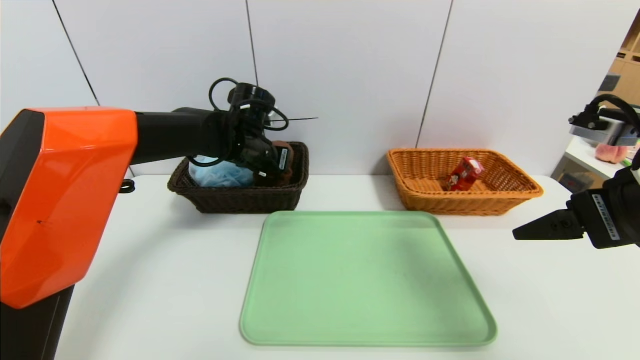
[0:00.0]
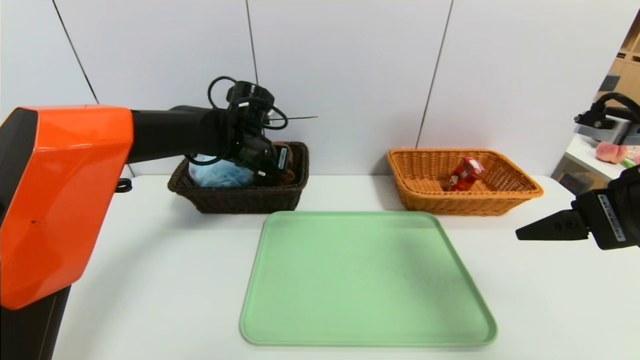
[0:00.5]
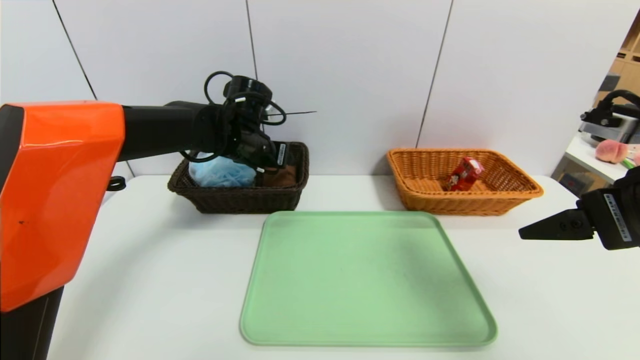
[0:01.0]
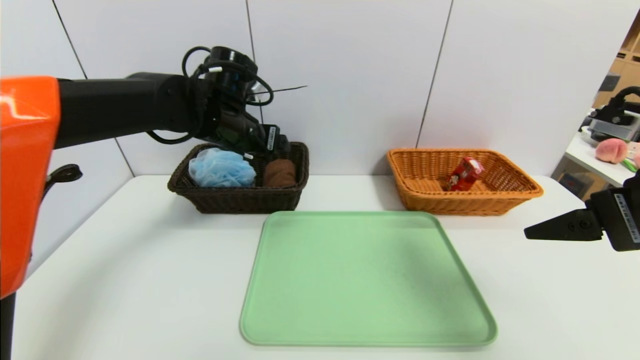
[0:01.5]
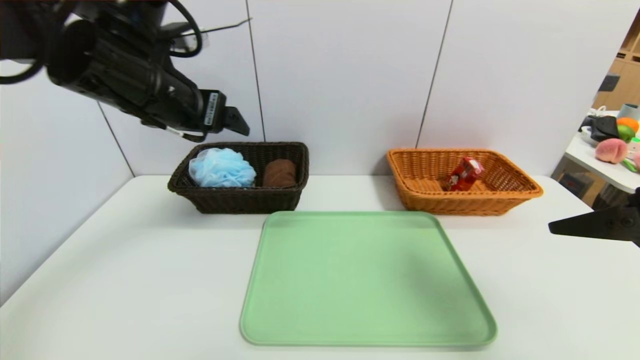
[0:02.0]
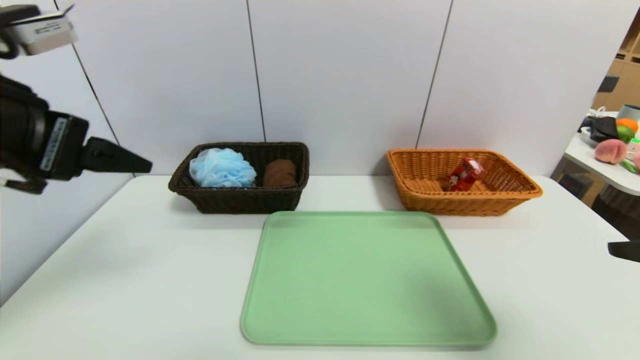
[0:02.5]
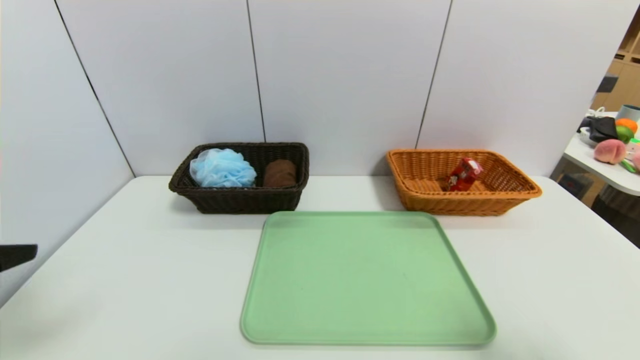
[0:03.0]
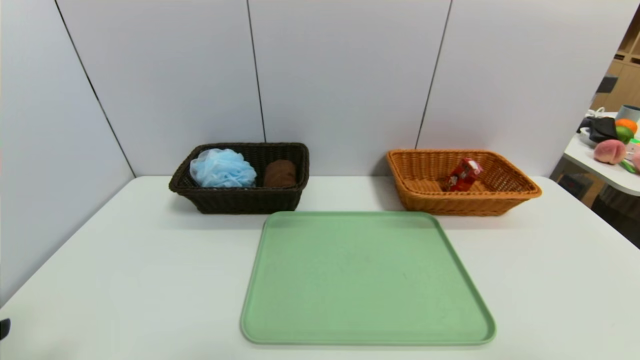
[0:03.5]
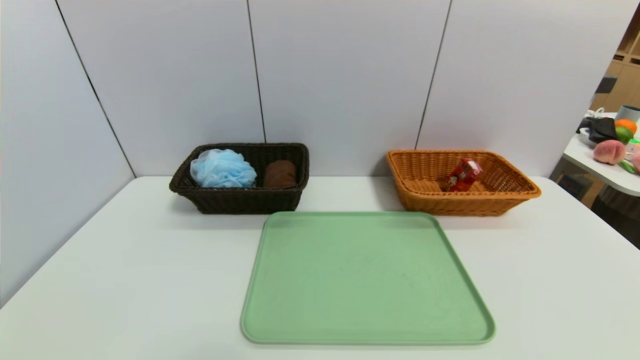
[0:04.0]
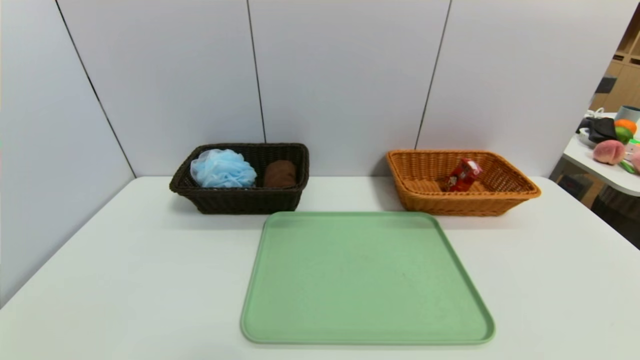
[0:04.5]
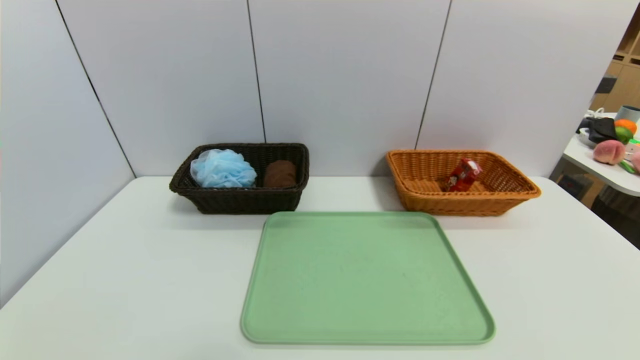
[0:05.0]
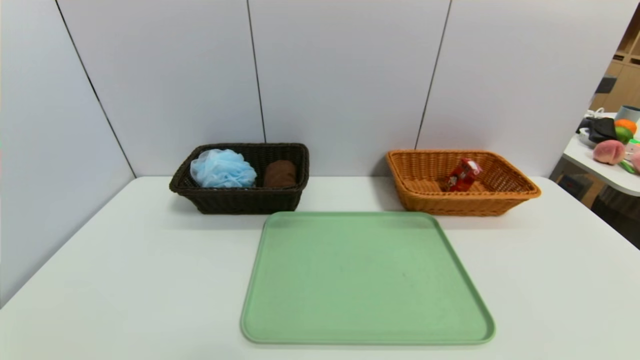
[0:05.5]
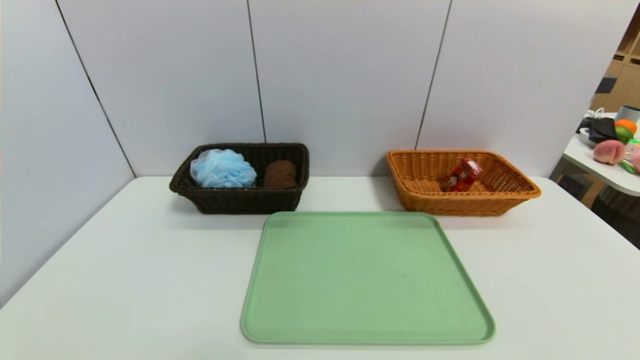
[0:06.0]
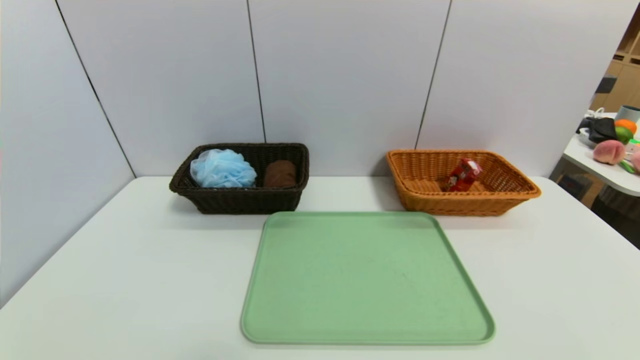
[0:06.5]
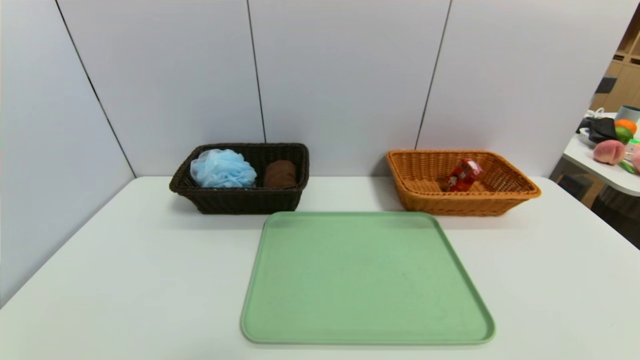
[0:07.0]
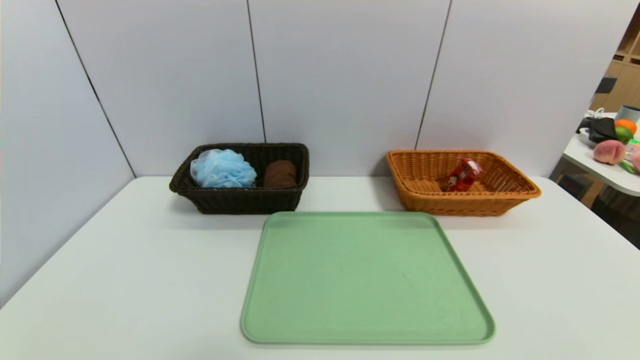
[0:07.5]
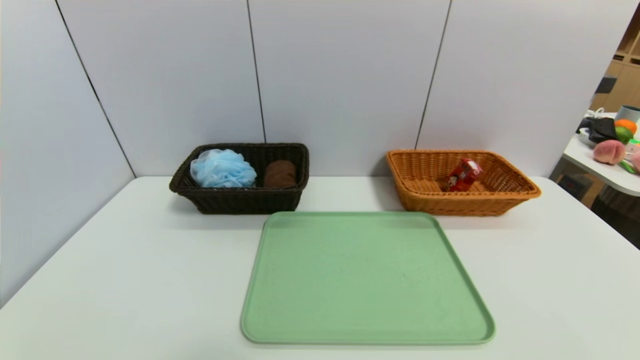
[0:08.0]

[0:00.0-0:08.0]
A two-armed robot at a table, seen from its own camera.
Task of the whole recording: place the food in the right basket with the right gripper, and place the non food items in the left basket with the left gripper.
0:00.0 to 0:02.0: The left gripper heads backward, upward and to the left, covering about 20 cm, and opens.
0:02.0 to 0:04.0: The left gripper is displaced backward and downward by about 35 cm. Meanwhile the right gripper shifts some 20 cm backward and downward.
